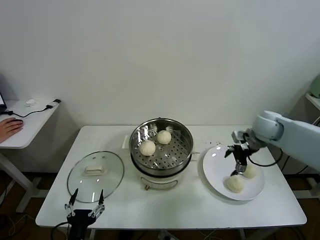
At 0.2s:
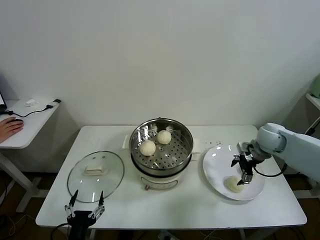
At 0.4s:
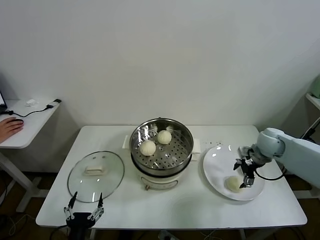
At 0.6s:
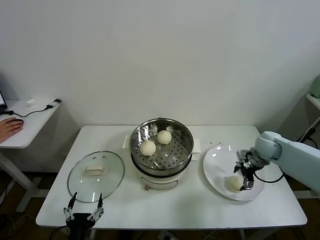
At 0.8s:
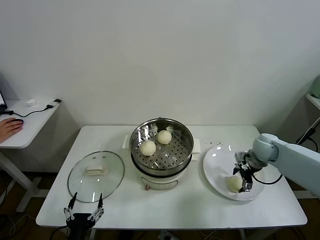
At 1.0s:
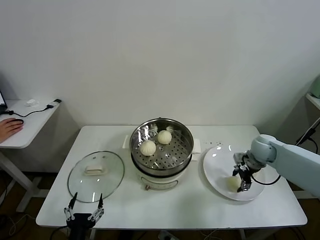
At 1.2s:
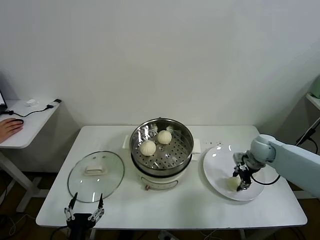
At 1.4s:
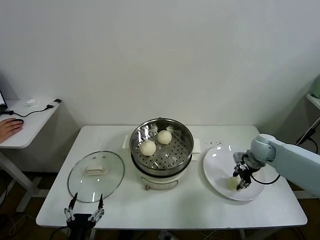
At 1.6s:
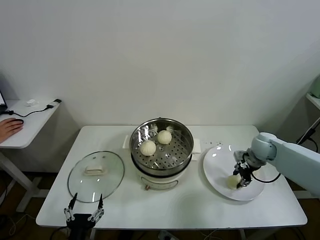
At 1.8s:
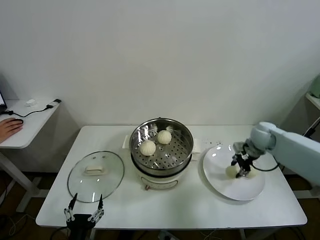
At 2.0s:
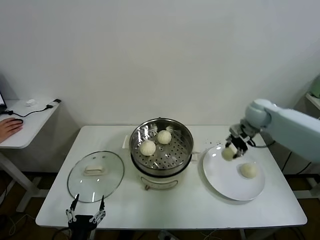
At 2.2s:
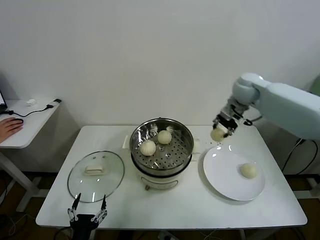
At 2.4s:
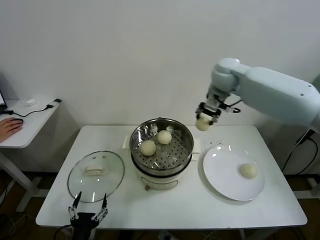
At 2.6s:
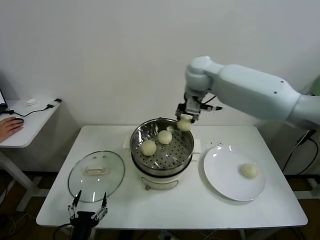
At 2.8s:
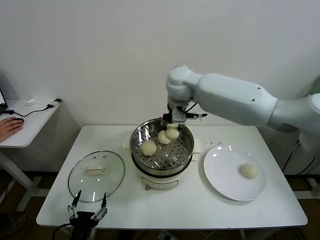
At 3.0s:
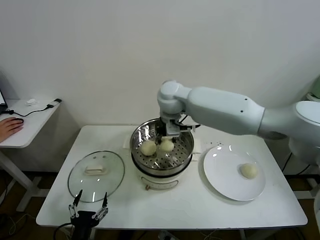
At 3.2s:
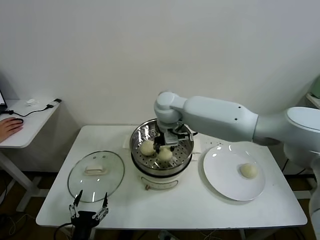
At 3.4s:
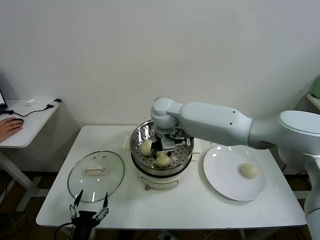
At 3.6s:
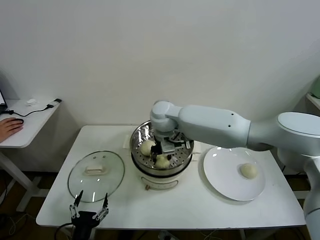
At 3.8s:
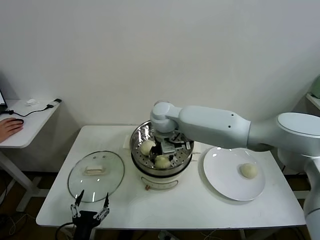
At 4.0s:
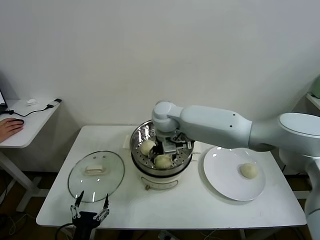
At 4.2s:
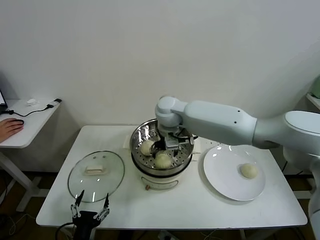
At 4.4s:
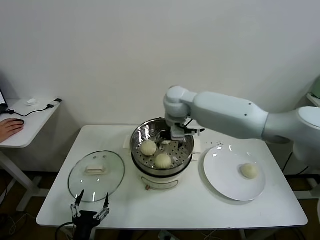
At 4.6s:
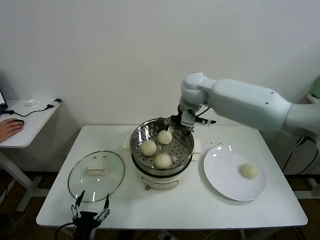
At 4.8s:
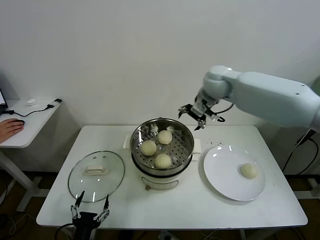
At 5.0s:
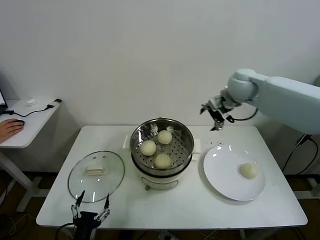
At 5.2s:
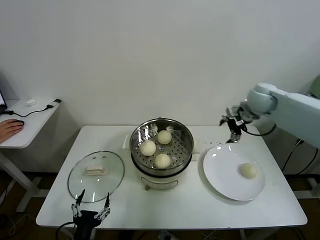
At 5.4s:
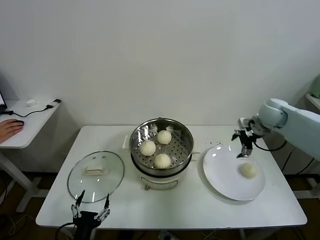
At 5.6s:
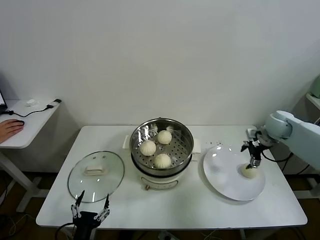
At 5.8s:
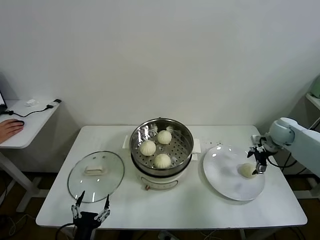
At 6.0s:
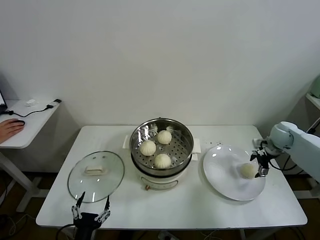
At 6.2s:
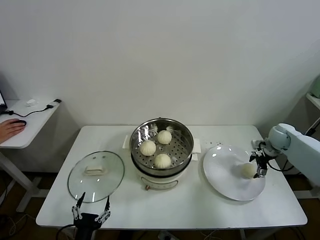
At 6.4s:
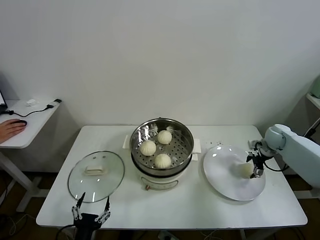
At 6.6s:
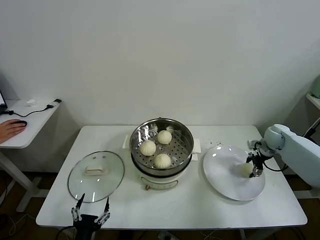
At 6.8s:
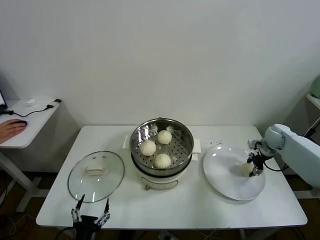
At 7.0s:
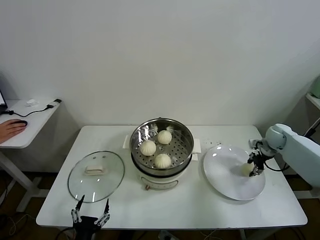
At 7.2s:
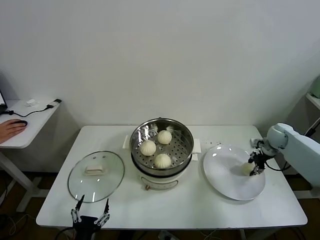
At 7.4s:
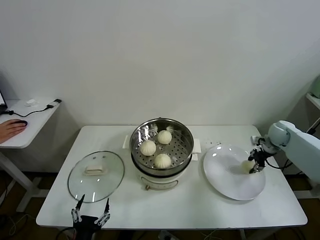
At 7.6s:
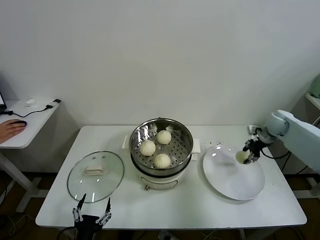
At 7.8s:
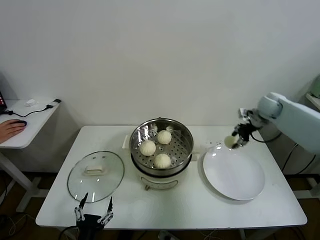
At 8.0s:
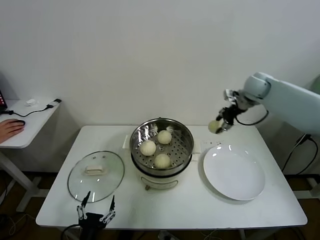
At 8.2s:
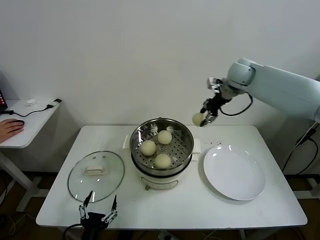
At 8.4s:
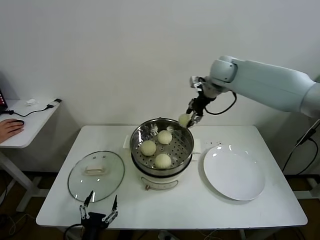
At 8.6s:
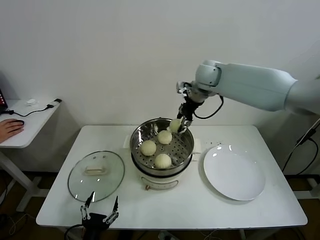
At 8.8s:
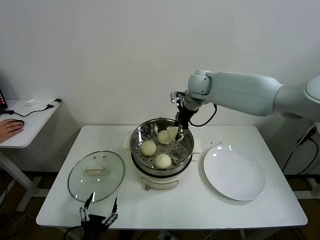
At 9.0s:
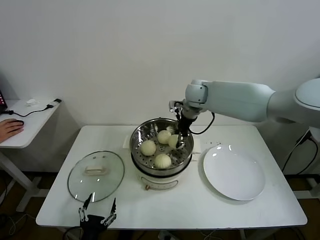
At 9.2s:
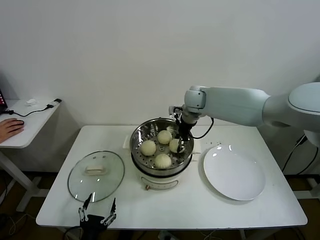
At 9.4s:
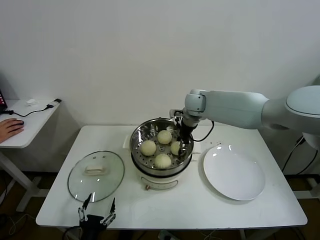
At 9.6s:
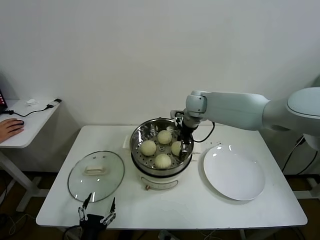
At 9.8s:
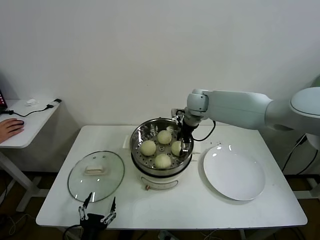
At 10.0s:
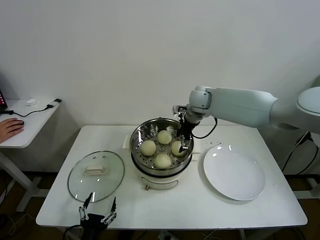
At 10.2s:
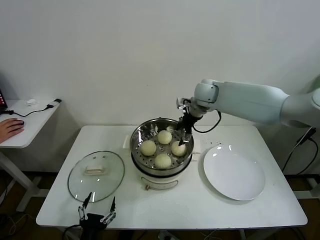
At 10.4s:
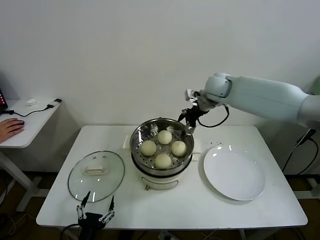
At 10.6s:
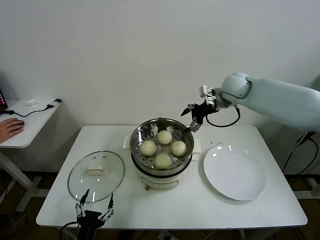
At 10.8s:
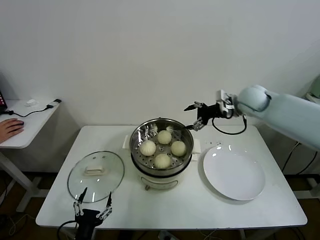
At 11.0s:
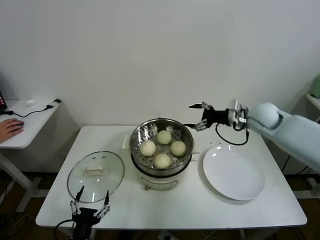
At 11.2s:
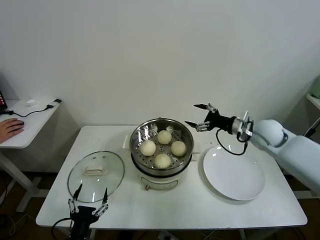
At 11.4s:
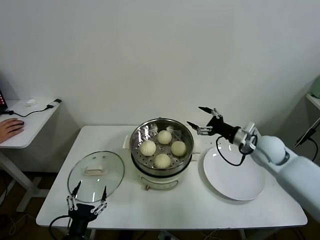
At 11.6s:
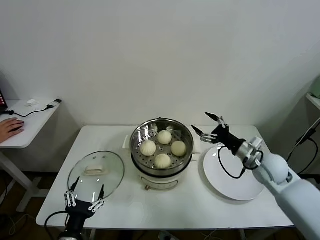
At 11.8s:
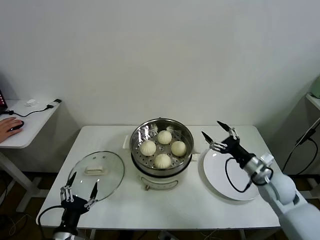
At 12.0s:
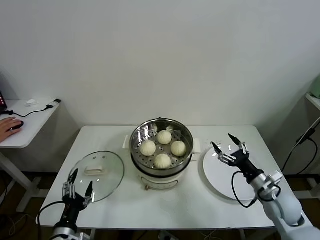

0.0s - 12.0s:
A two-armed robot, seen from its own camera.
Task of the whole recording: take steamed baozi put them in steamer.
Step, 0.0s - 1.2s: Grasp the baozi in the plate with right gripper.
Step, 1.4s - 3.8s: Place the baozi on the steamer with right gripper.
Step, 4.0s - 6.6s: Grasp the baozi in the plate with right gripper.
Step, 7.0s - 9.8s: Place the baozi on the steamer with right gripper.
0.0s - 1.6s: The right gripper goes some 10 cm downward, and closes.
1.6s - 3.0s: The right gripper moves to the left and upward, some 40 cm.
3.0s - 4.4s: The right gripper opens.
4.4s - 6.0s: The right gripper shifts some 40 cm to the right and downward.
6.0s - 7.6s: The right gripper moves about 5 cm, and closes up.
7.6s - 9.0s: The right gripper is displaced to the left by approximately 30 cm.
9.0s - 10.4s: The right gripper travels to the right by some 5 cm, and opens up.
10.4s - 12.0s: The left gripper moves to the left, some 5 cm. Meanwhile the right gripper shifts about 40 cm backward, downward and to the right.

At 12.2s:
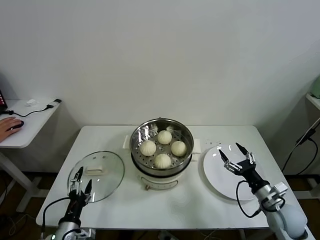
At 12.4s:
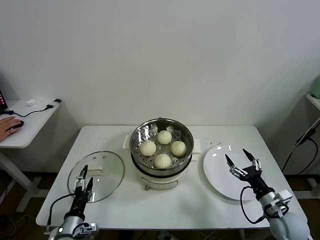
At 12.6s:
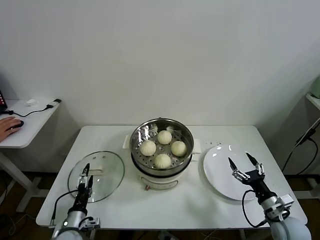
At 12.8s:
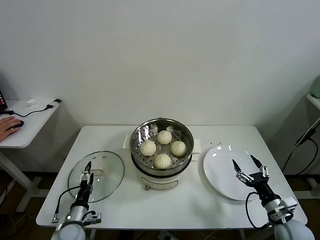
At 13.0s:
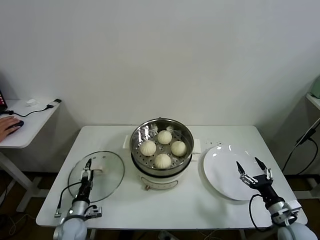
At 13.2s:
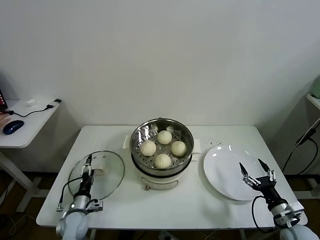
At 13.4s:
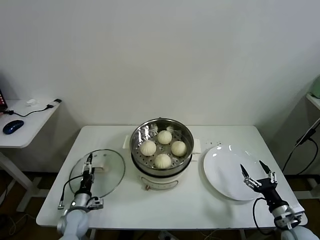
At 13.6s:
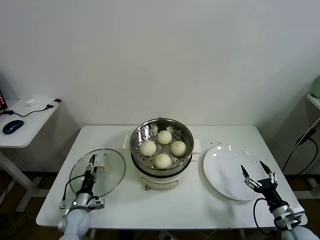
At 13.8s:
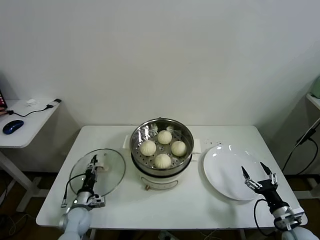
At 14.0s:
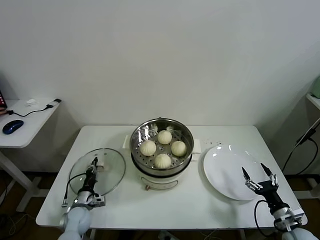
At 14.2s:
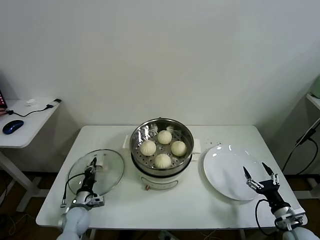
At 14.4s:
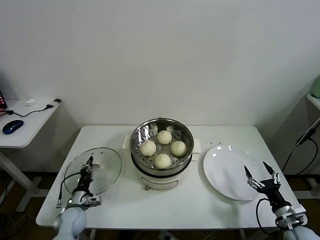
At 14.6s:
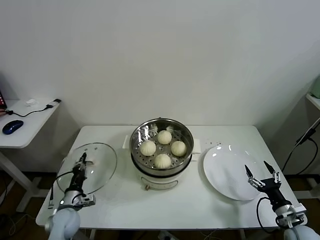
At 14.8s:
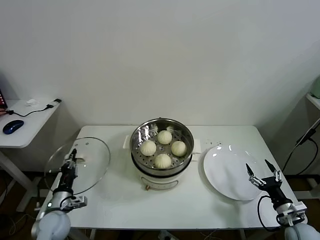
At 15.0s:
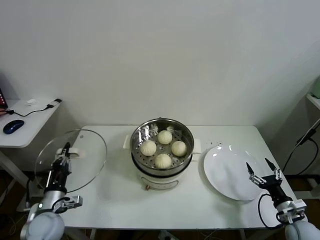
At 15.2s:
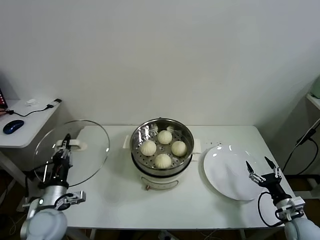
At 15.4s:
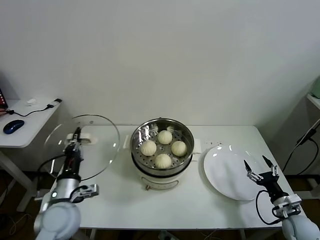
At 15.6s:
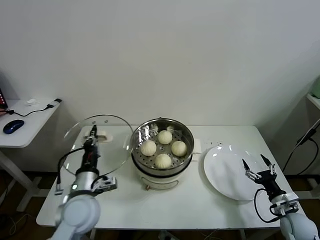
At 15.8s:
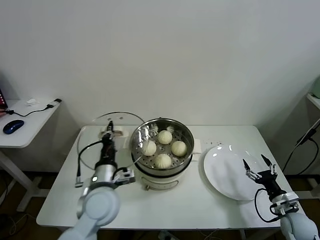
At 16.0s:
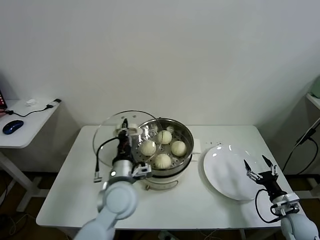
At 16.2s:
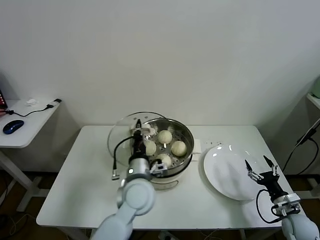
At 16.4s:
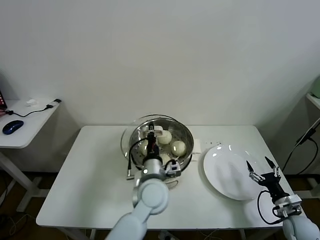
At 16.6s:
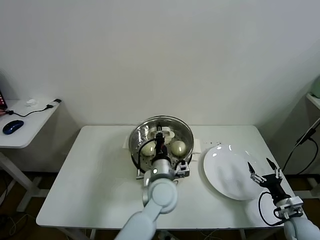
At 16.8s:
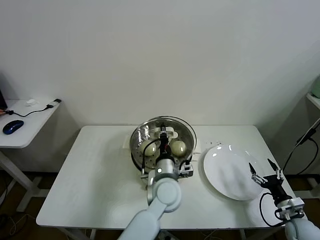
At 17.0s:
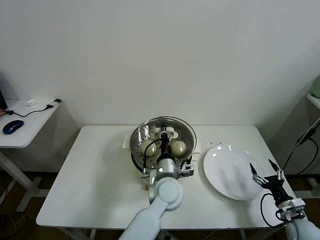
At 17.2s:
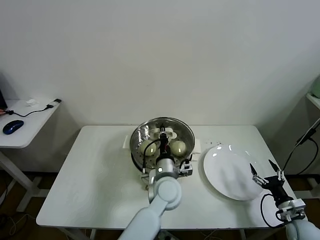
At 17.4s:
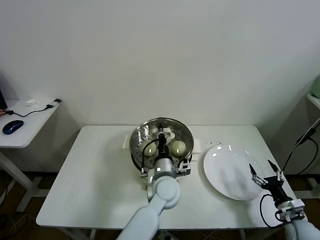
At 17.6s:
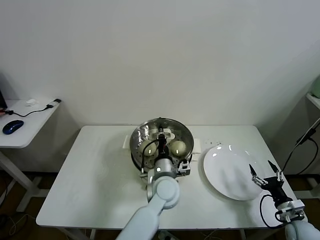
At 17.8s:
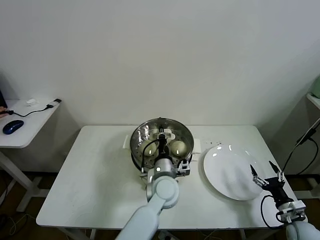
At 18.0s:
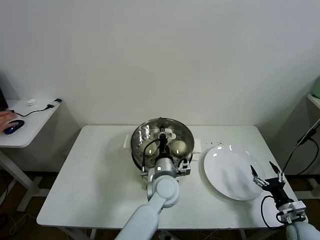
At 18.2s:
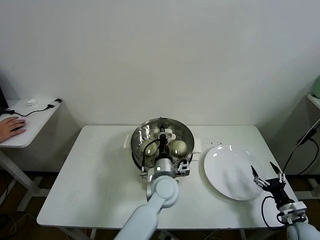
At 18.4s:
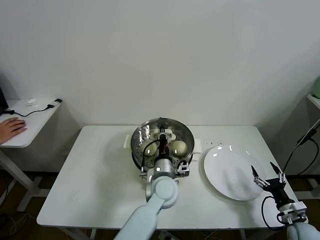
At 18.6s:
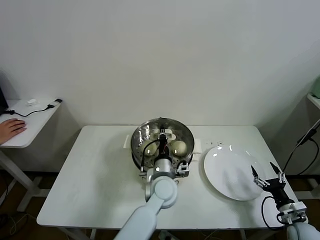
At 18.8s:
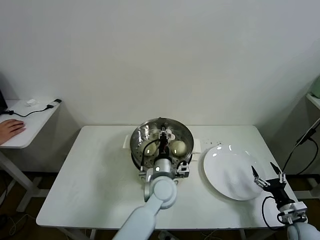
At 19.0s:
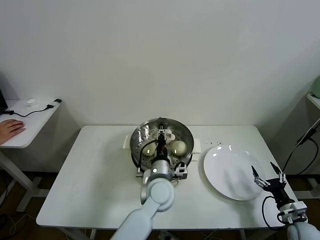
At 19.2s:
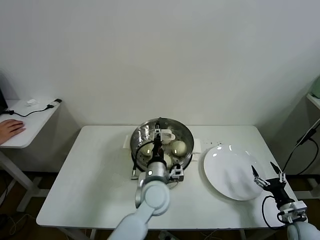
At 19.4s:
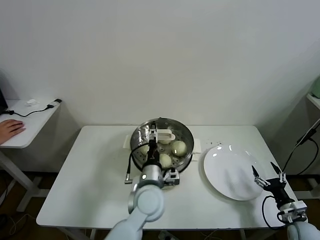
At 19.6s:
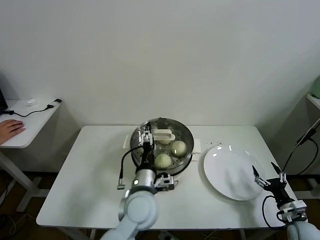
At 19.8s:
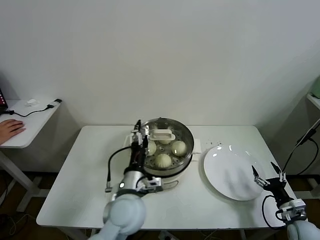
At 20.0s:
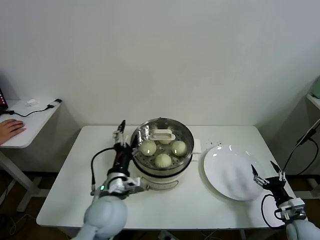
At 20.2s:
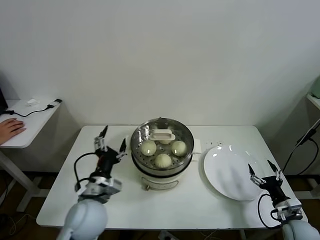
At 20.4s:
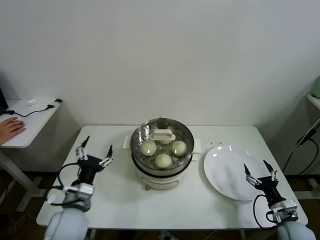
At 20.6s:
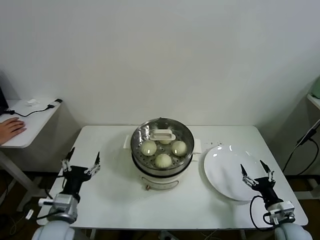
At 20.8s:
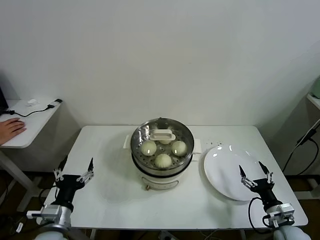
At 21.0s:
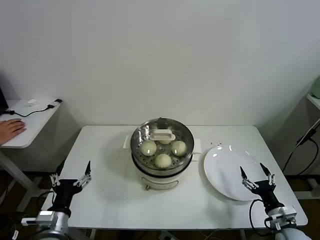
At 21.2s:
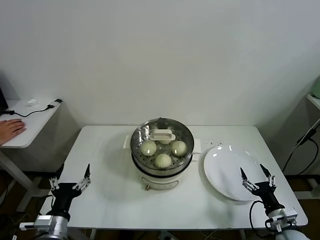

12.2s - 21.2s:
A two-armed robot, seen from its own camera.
Task of the whole recording: take steamed baozi put them in steamer.
Step, 14.2s - 19.4s: Place the pot lid on the steamer with left gripper.
12.2s - 13.8s: The left gripper is displaced forward and downward by roughly 20 cm, and closes up. Meanwhile the right gripper is displaced backward, downward and to the right by roughly 10 cm.
13.8s - 15.2s: The left gripper moves upward, some 20 cm, and closes up.
15.2s - 16.6s: The left gripper moves to the right, some 30 cm.
16.6s - 18.2s: There are only small adjustments of the grippers.
18.2s - 19.8s: The left gripper travels to the left, backward and upward by about 15 cm, and opens.
19.8s - 21.2s: The right gripper travels to the left by about 5 cm; the left gripper shifts some 25 cm to the left and backward.

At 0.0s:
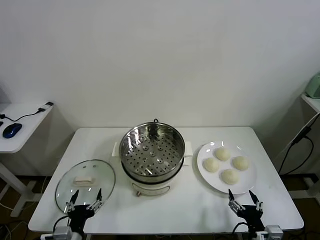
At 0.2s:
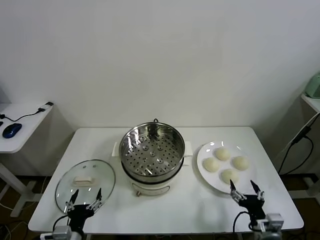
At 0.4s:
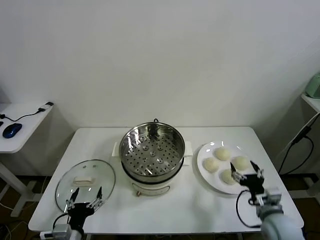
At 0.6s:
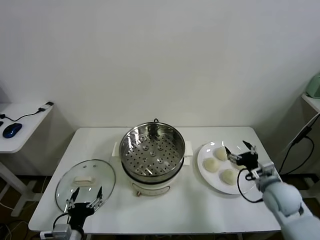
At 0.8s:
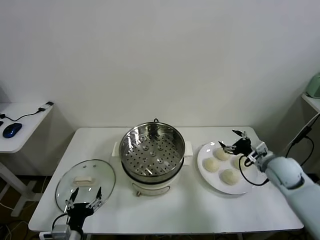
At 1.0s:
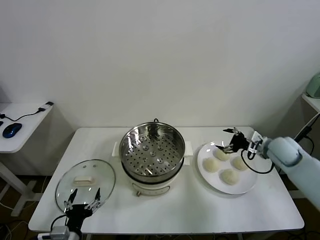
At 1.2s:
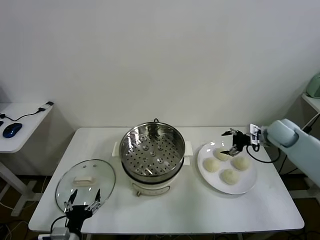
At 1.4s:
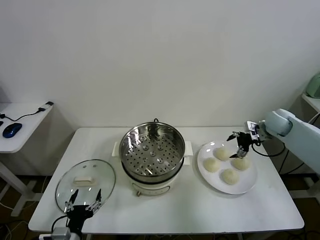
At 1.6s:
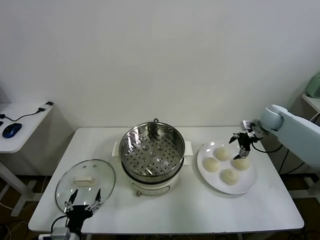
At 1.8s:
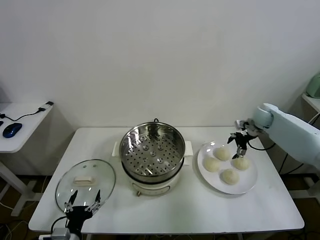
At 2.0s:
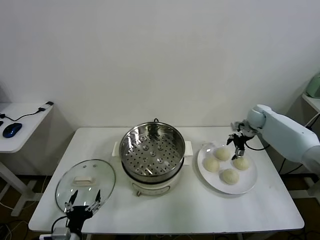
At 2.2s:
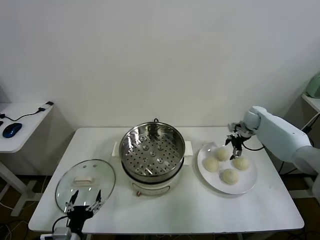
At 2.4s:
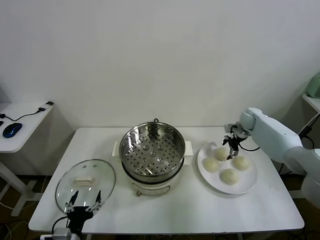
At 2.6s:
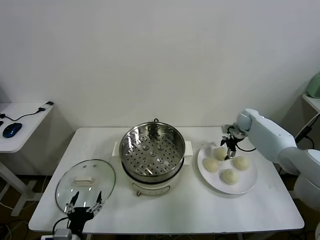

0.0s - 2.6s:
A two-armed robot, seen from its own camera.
Task of the whole recording: take steamed baozi put them in steamer.
1.2s - 2.6s: The right gripper is displaced forward, downward and to the left by roughly 15 cm.
